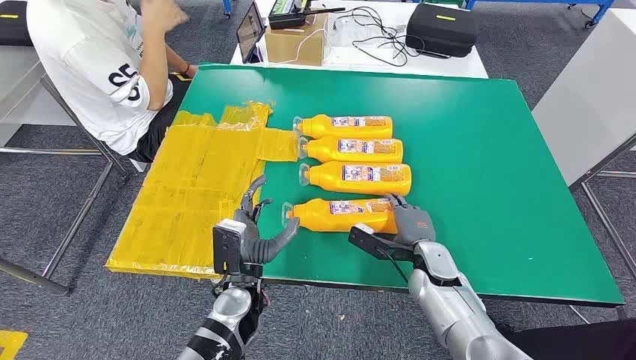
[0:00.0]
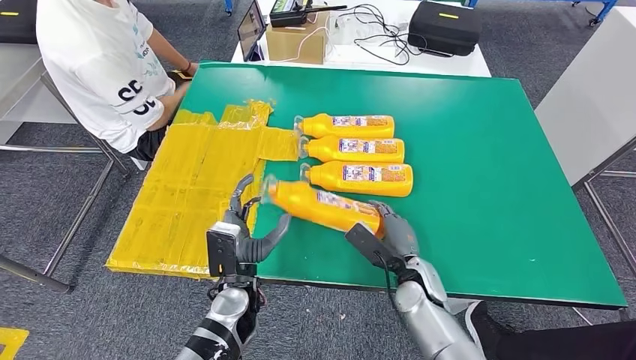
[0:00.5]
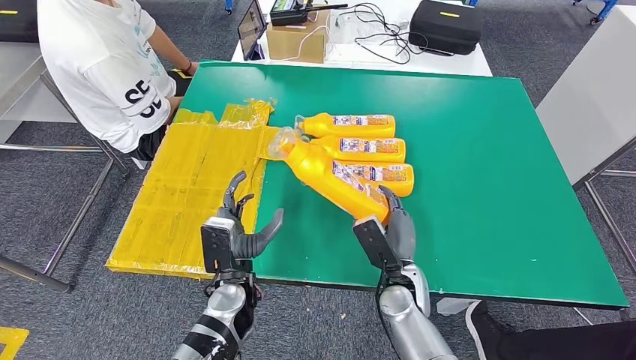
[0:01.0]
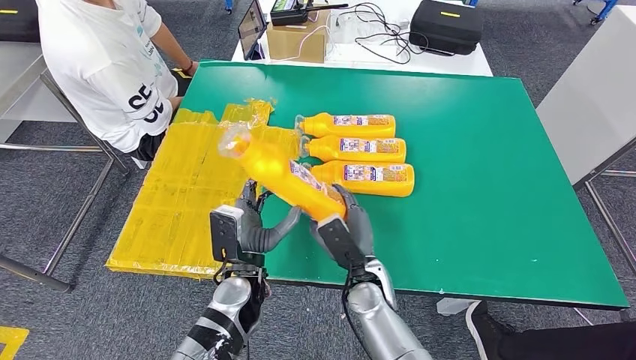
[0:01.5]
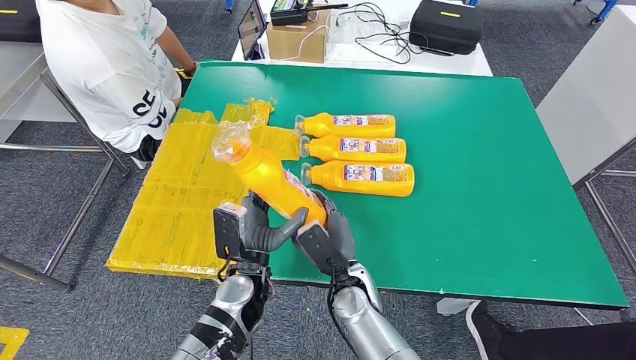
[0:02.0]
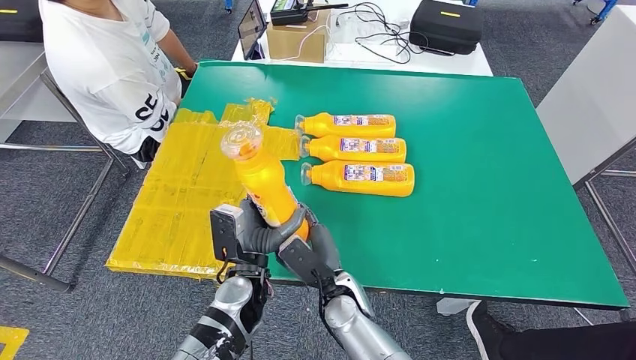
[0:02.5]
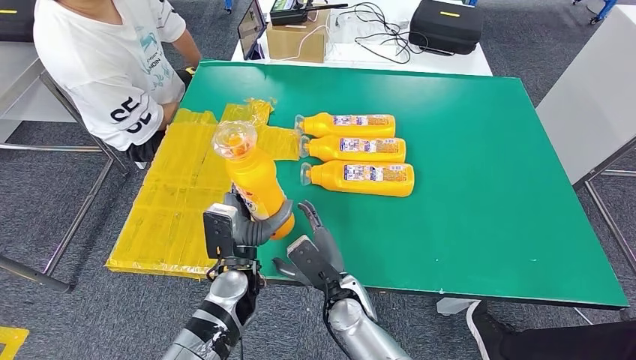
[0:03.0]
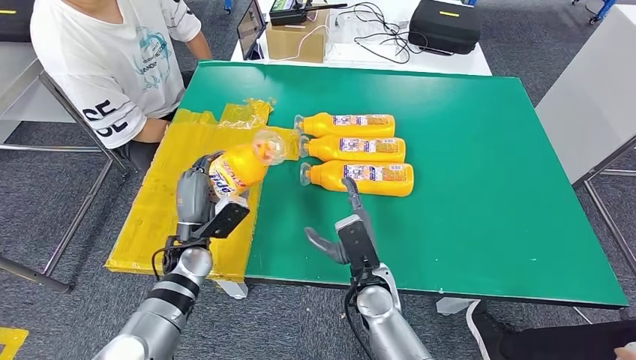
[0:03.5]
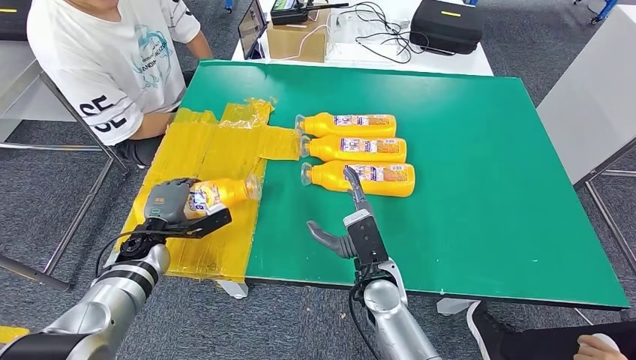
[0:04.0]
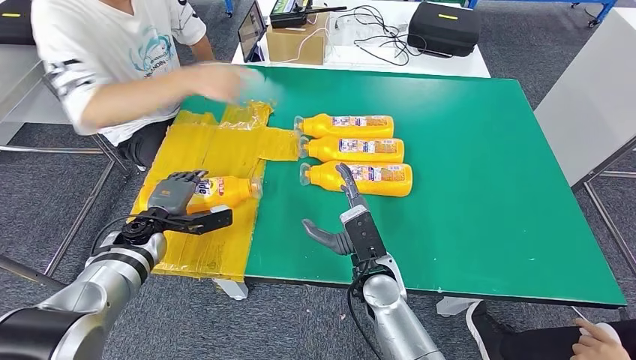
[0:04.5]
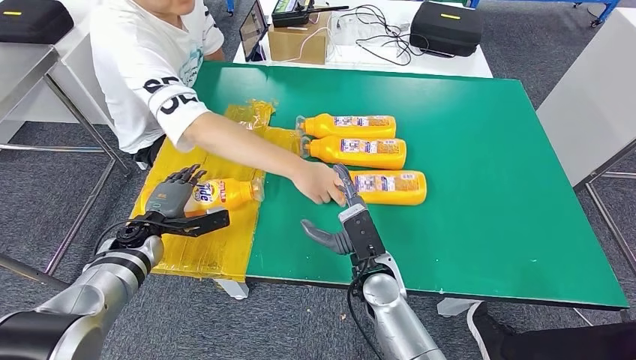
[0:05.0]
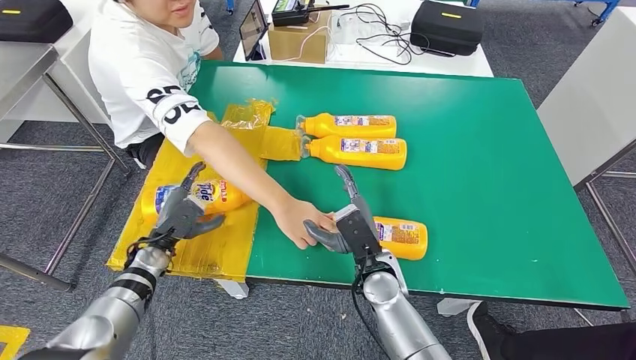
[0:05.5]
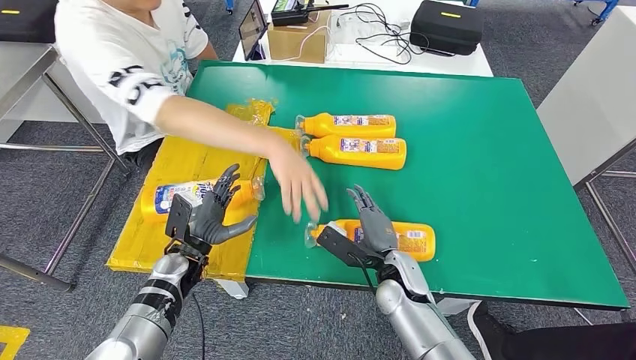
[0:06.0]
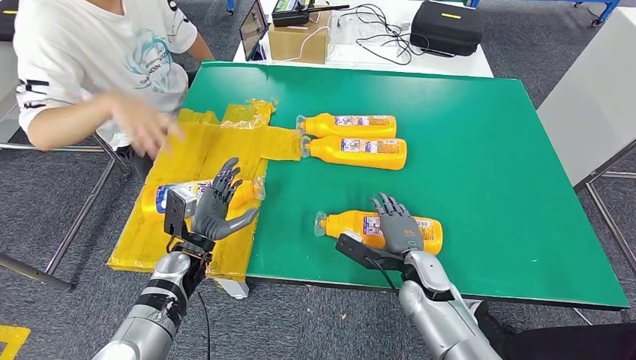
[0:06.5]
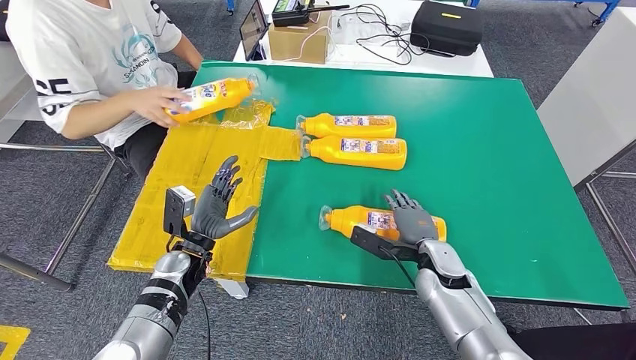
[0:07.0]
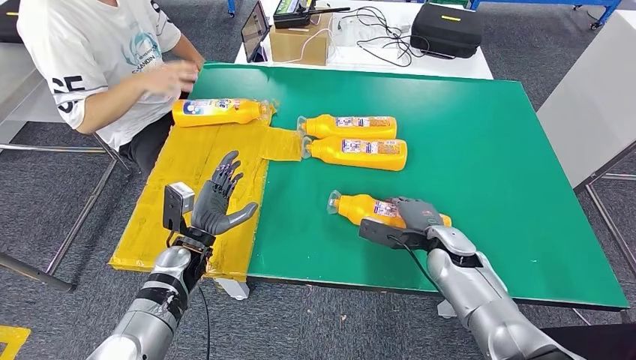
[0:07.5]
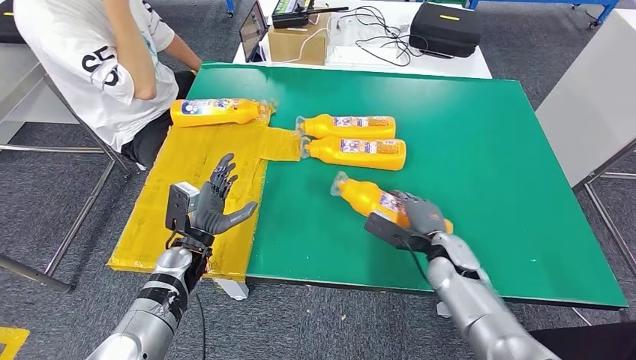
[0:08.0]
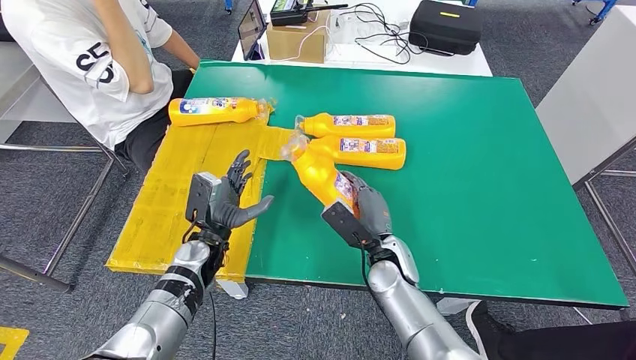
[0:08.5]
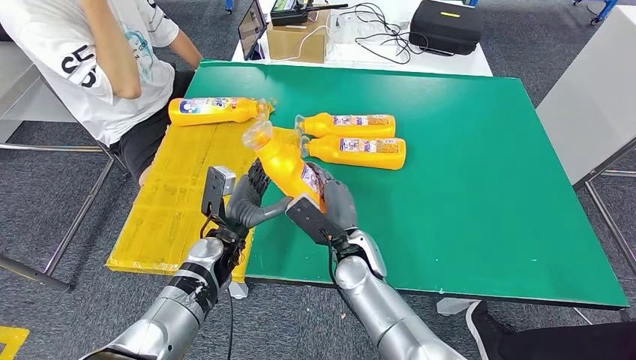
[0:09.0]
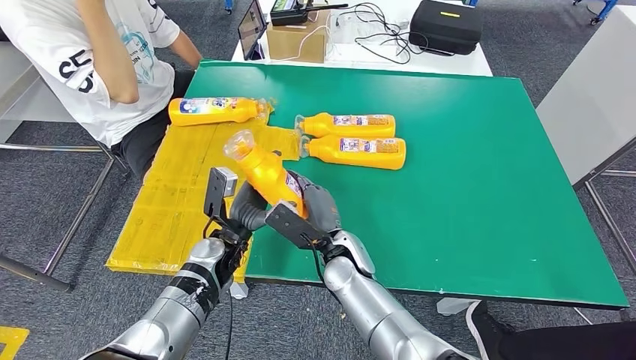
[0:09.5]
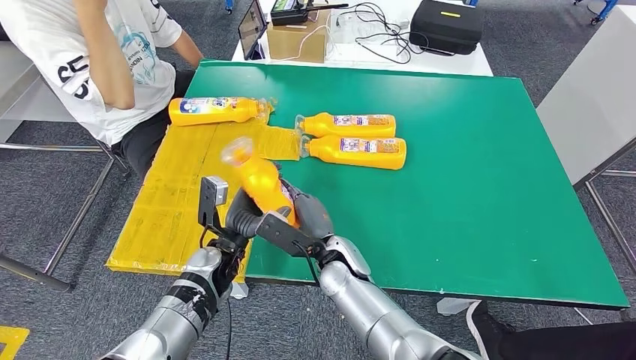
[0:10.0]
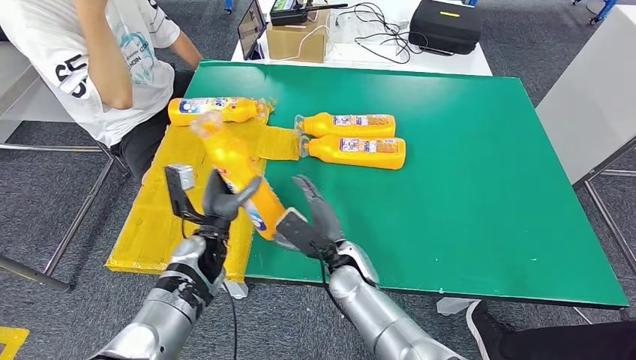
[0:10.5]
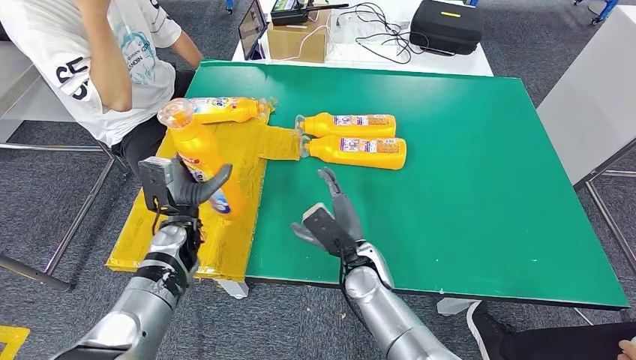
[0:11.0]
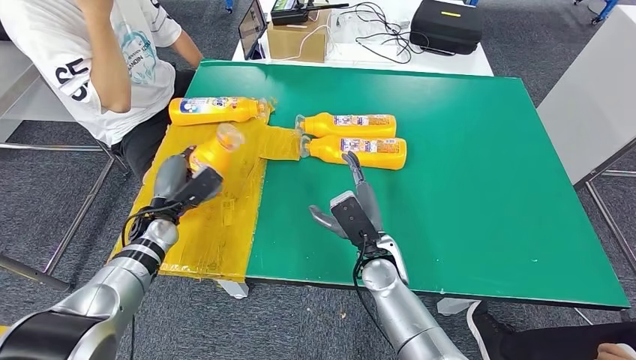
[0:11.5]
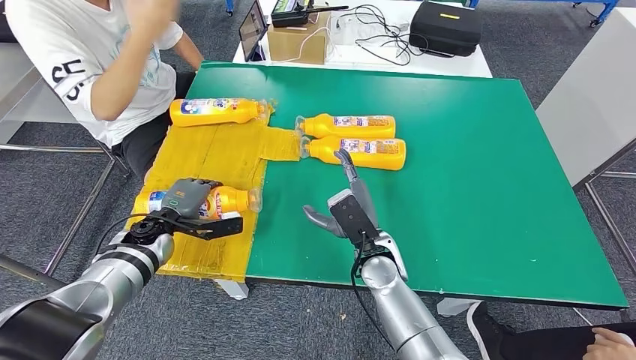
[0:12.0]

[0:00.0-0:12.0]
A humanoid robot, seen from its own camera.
Step, 0:00.0 to 0:01.5: Take the fast-moving consumer goods bottle from the table.
Step, 0:02.5 to 0:05.0: Flip the fast-moving consumer goods bottle to the front side.
Step, 0:07.0 to 0:08.5: Pick up the fast-moving consumer goods bottle from the table.

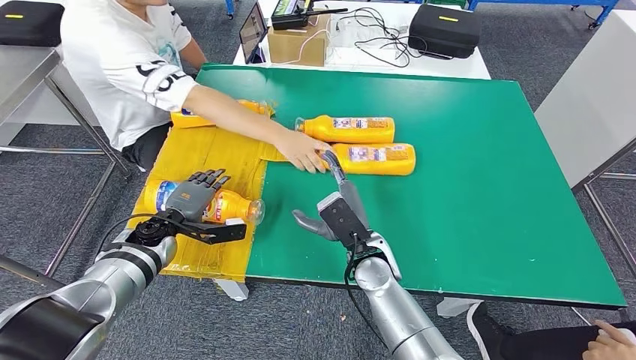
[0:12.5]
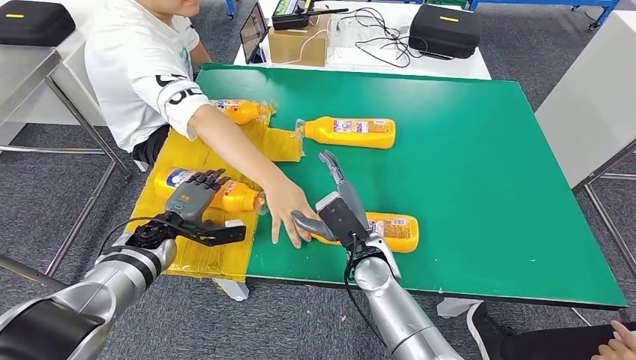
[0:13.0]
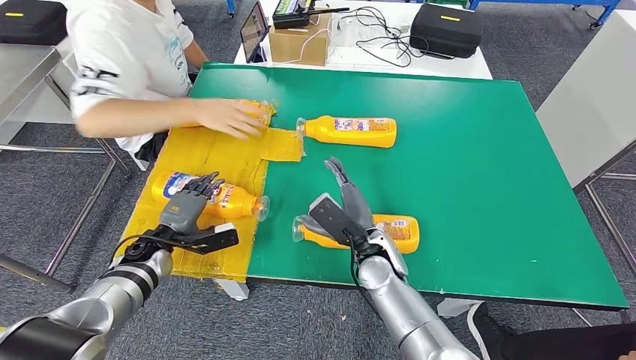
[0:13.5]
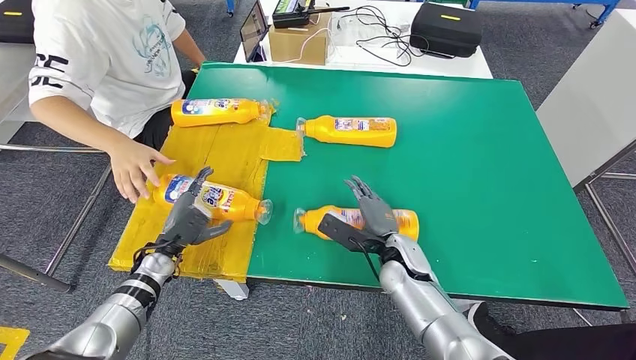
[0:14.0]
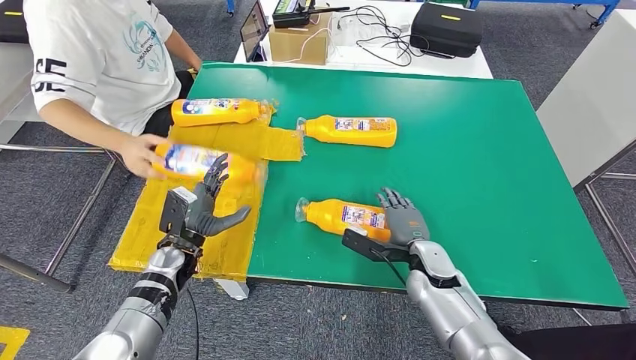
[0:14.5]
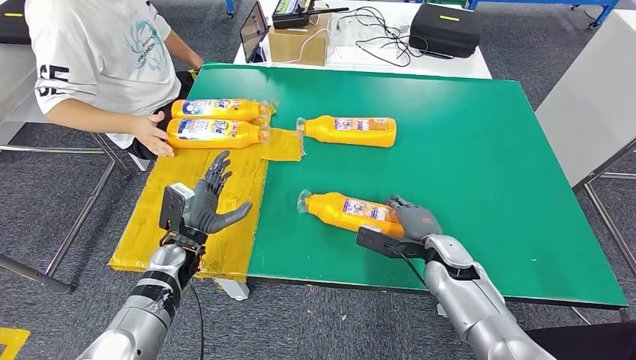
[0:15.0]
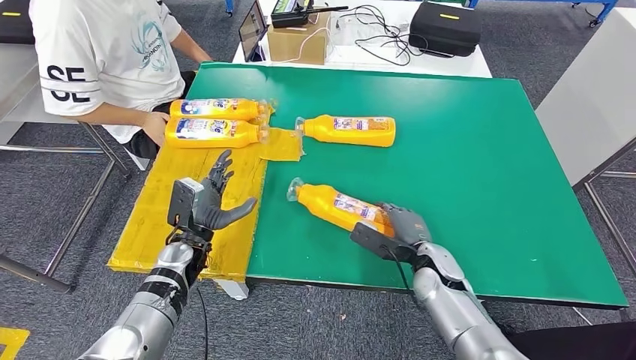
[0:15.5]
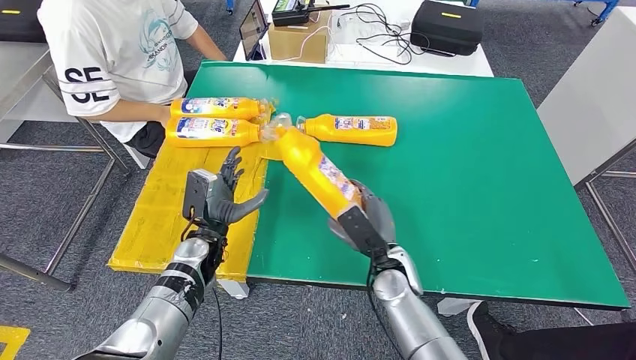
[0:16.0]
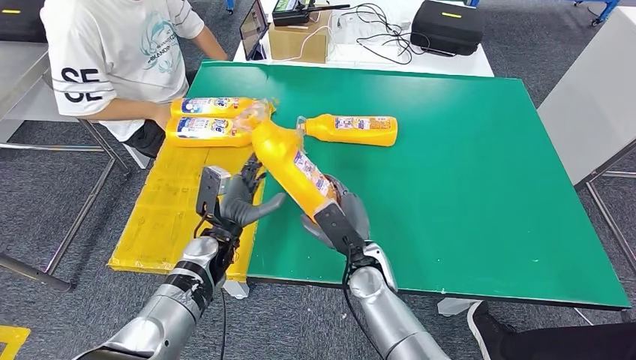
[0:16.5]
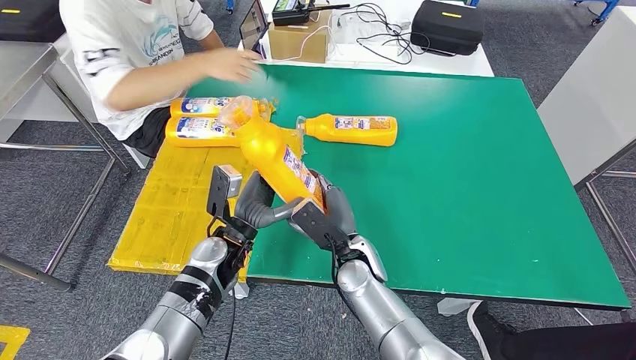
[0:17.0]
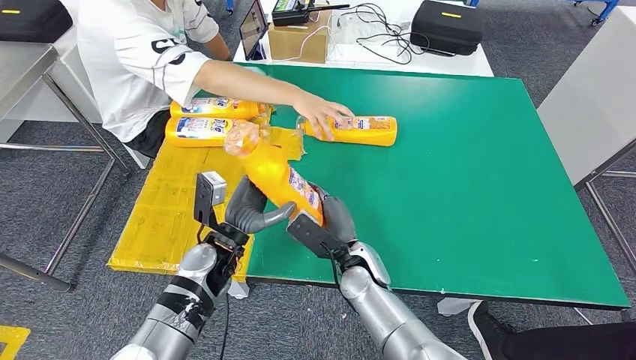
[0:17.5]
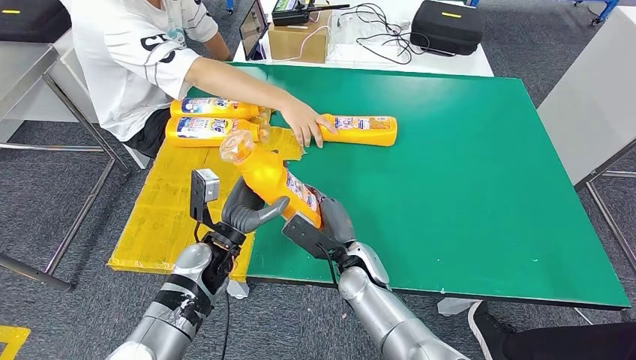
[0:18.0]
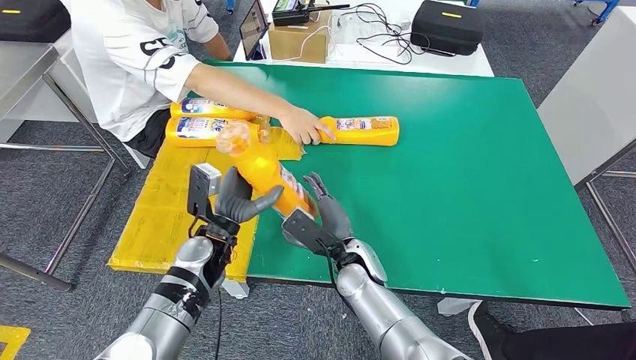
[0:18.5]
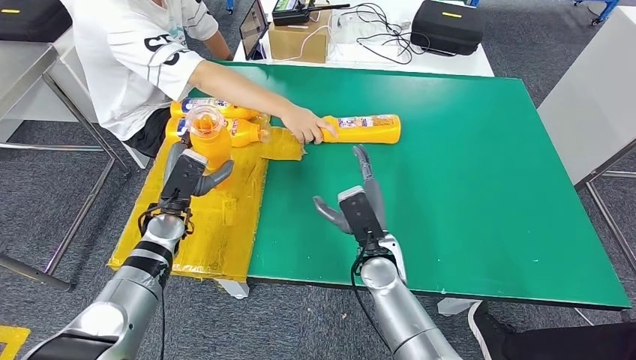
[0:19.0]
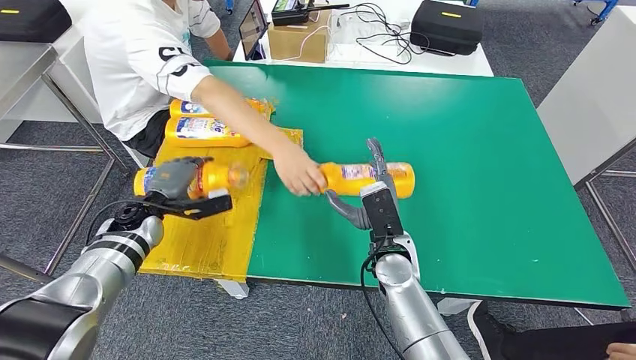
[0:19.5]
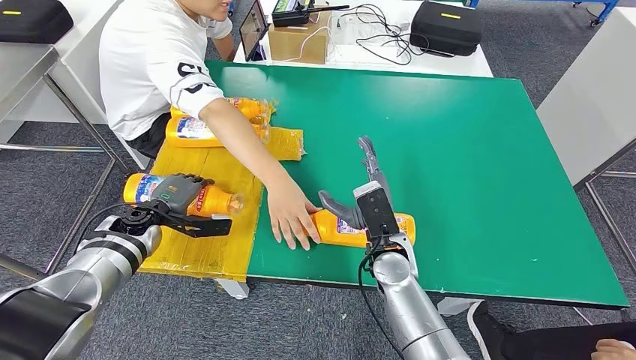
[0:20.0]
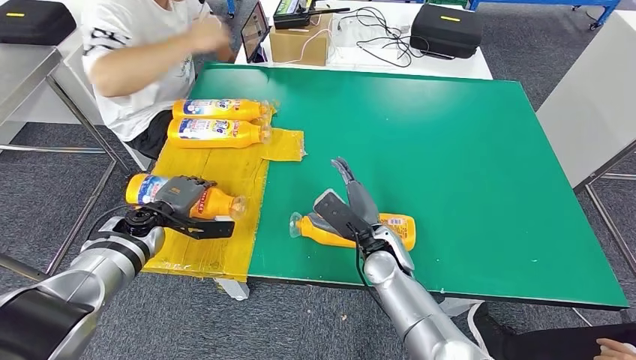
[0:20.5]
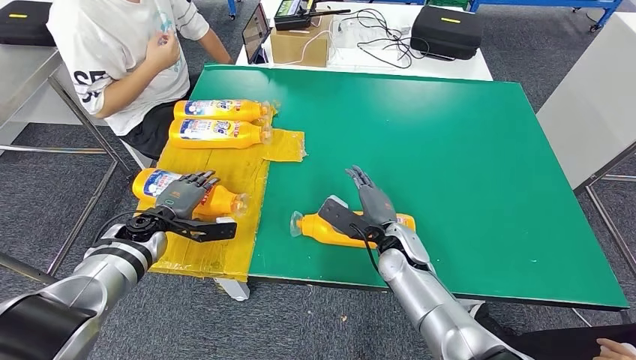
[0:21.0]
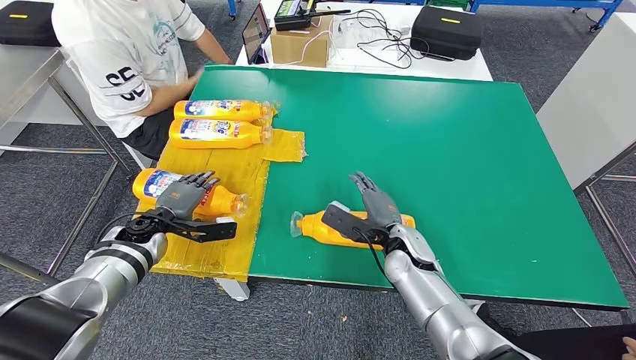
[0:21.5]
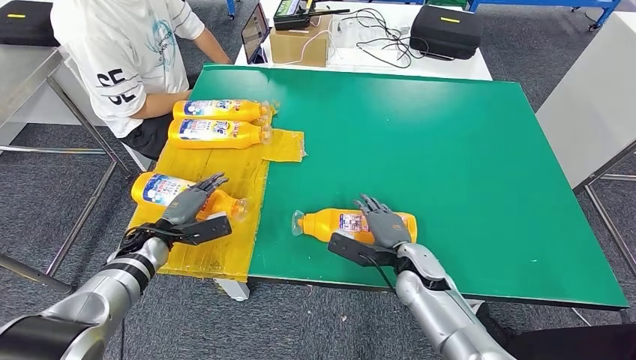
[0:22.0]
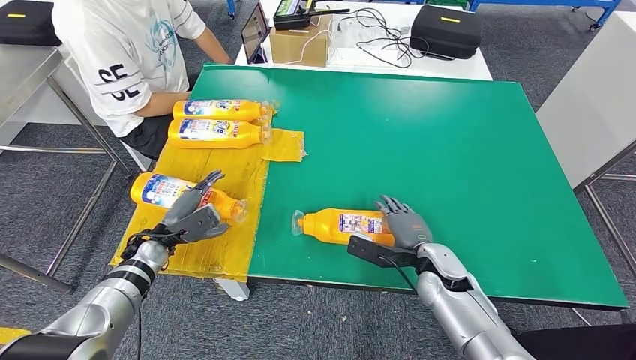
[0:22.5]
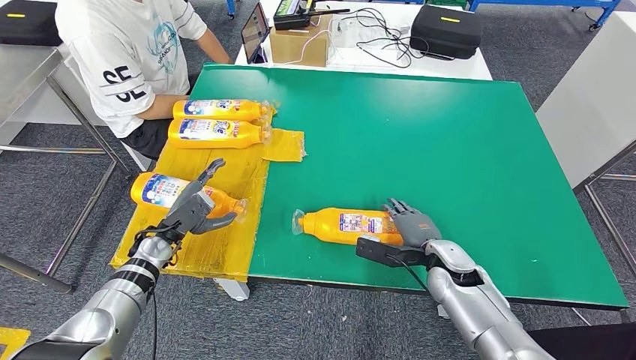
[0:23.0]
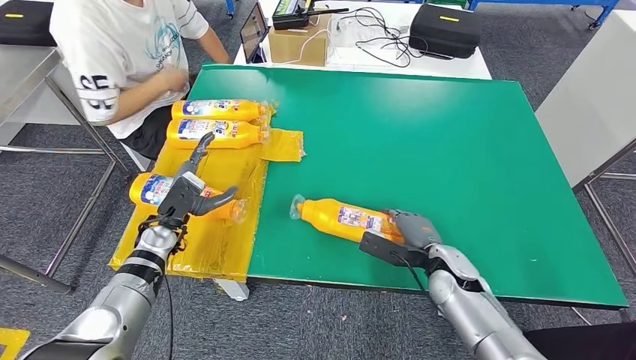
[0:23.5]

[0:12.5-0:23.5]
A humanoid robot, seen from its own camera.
Step, 0:14.5 to 0:16.5: Pick up the fast-moving consumer goods bottle from the table.
Step, 0:17.5 to 0:21.5: Flip the fast-moving consumer goods bottle to the front side.
